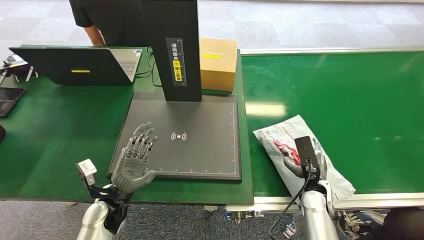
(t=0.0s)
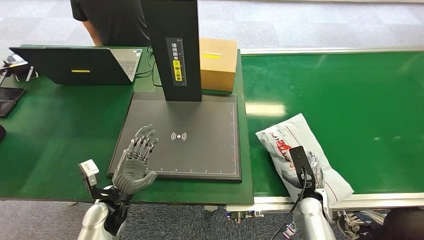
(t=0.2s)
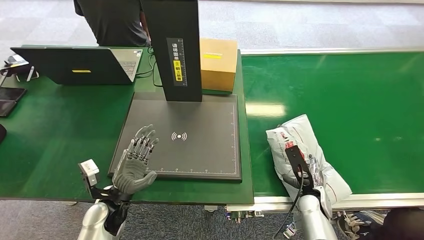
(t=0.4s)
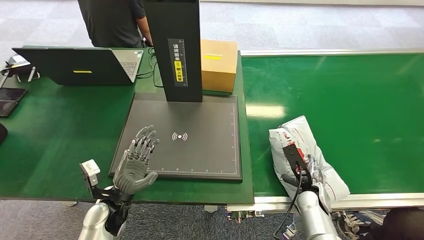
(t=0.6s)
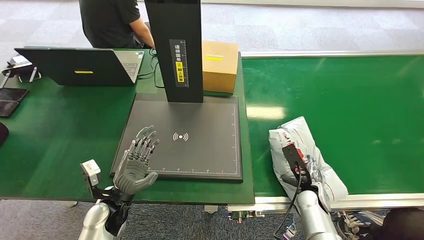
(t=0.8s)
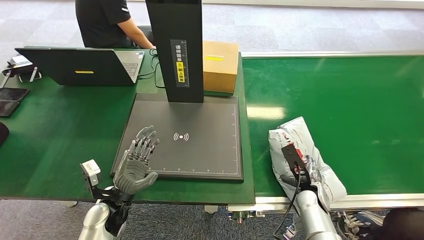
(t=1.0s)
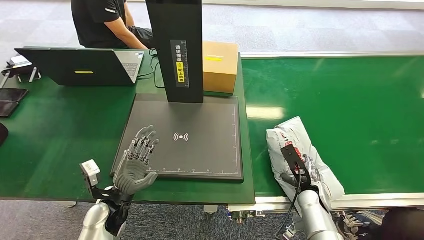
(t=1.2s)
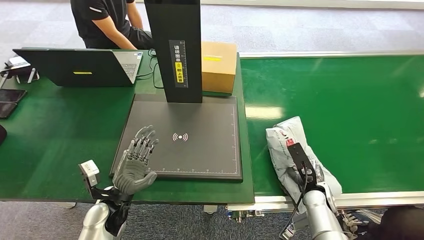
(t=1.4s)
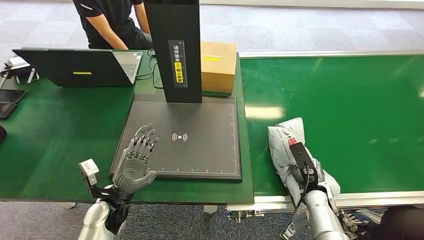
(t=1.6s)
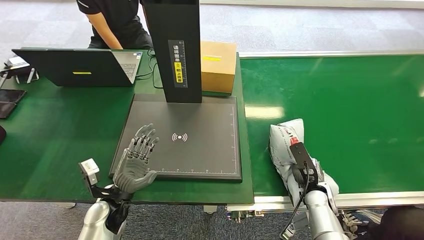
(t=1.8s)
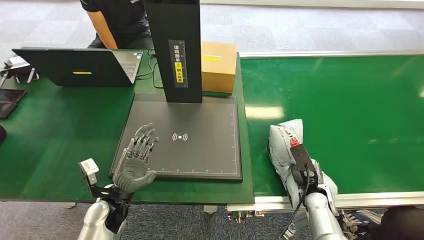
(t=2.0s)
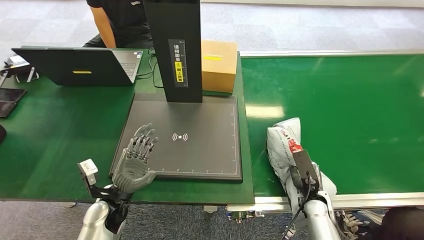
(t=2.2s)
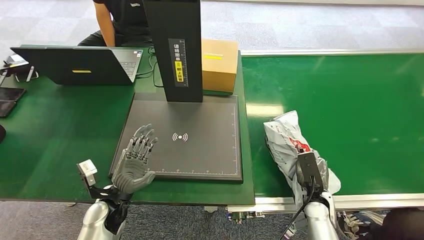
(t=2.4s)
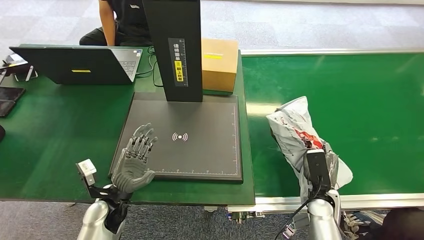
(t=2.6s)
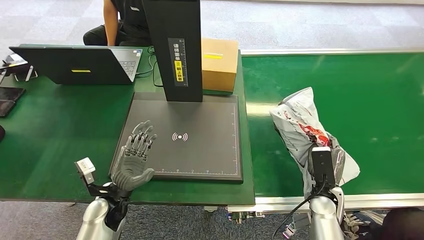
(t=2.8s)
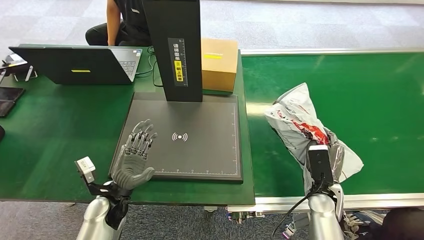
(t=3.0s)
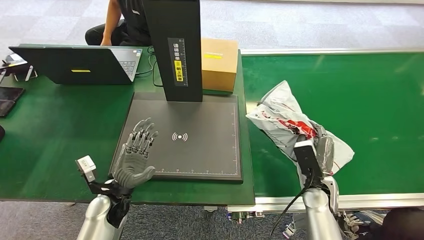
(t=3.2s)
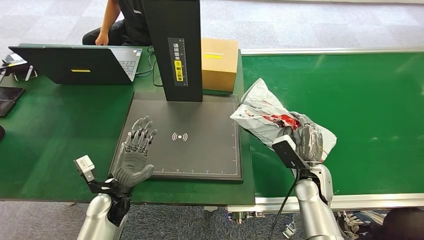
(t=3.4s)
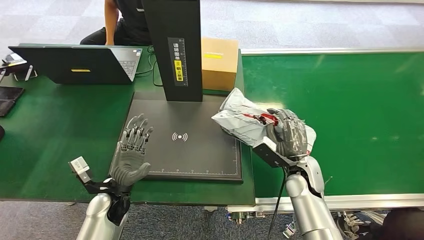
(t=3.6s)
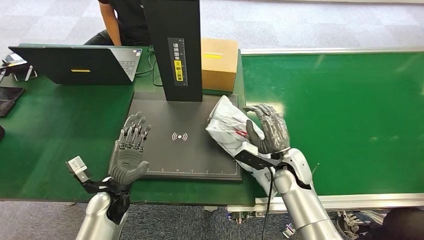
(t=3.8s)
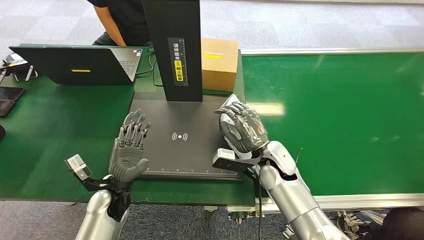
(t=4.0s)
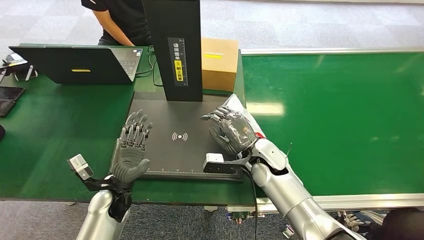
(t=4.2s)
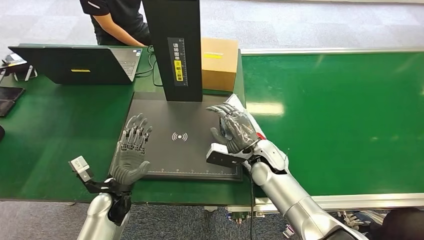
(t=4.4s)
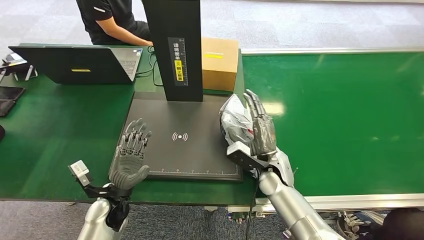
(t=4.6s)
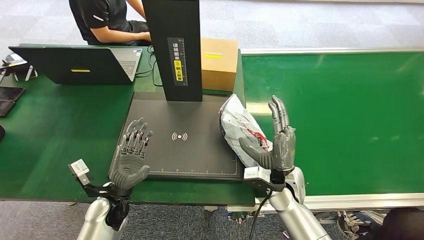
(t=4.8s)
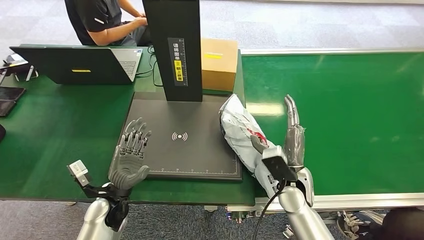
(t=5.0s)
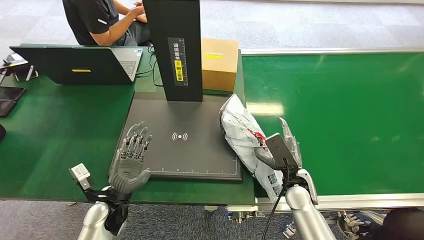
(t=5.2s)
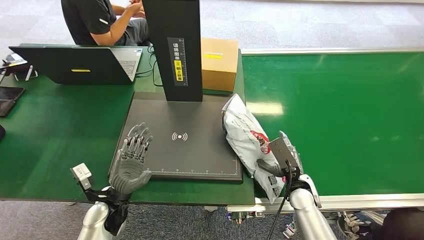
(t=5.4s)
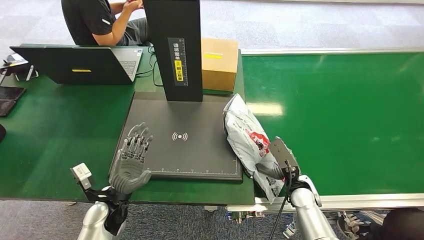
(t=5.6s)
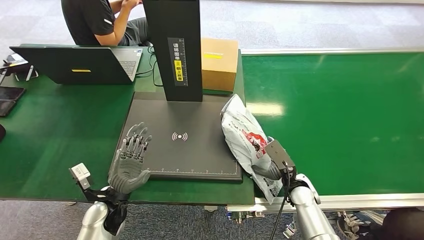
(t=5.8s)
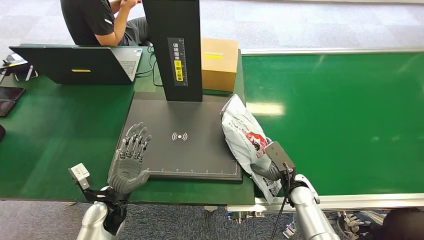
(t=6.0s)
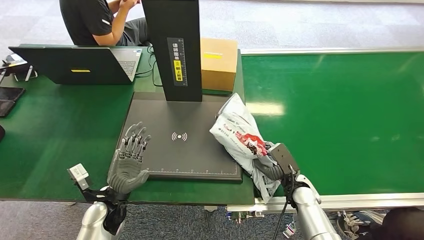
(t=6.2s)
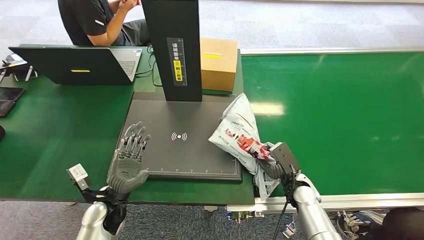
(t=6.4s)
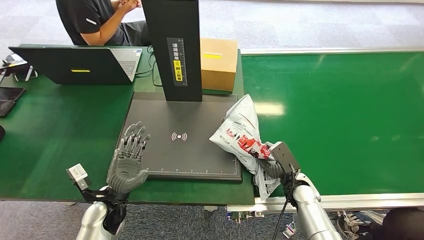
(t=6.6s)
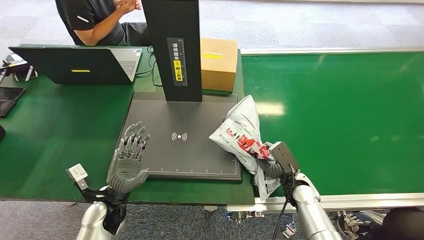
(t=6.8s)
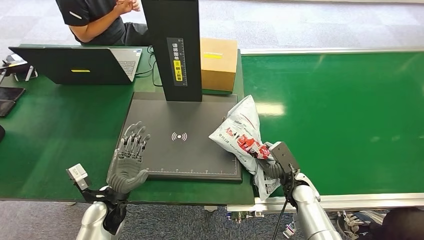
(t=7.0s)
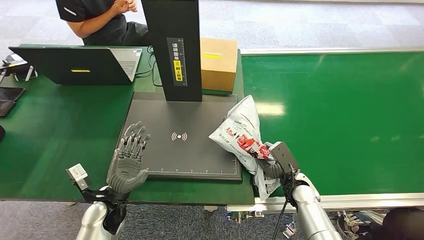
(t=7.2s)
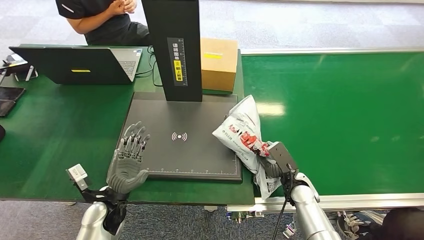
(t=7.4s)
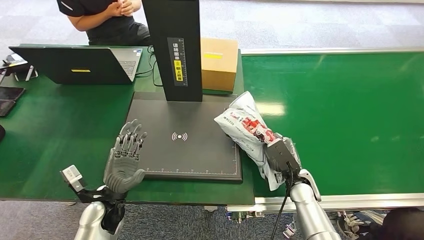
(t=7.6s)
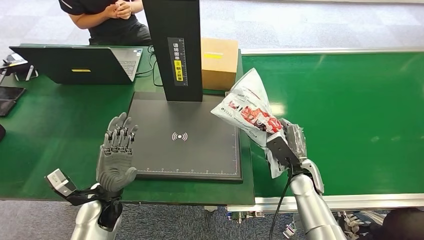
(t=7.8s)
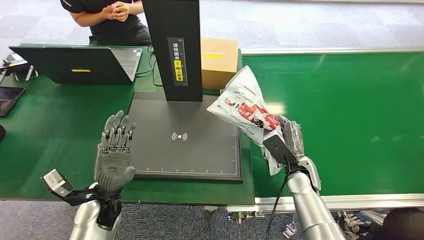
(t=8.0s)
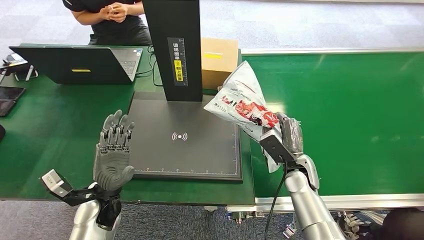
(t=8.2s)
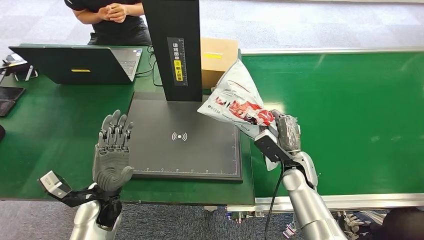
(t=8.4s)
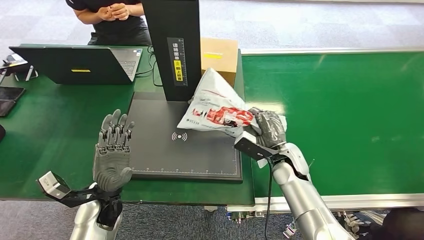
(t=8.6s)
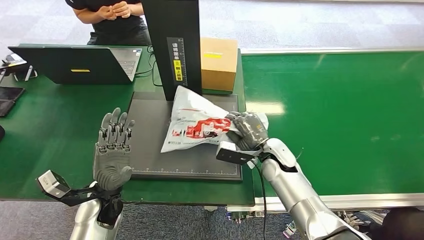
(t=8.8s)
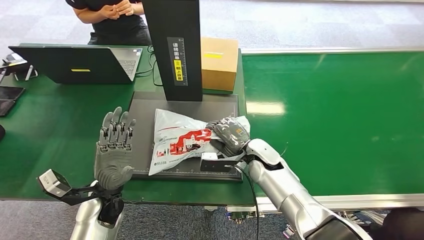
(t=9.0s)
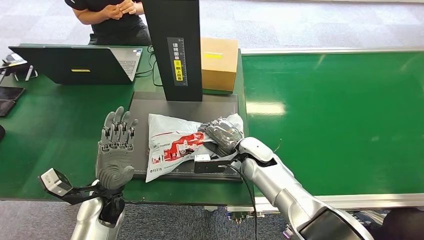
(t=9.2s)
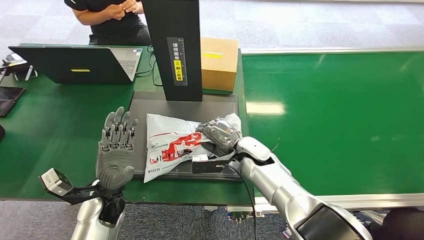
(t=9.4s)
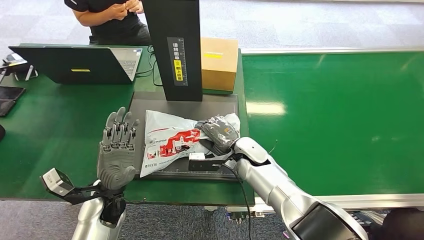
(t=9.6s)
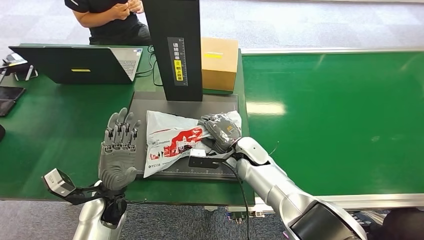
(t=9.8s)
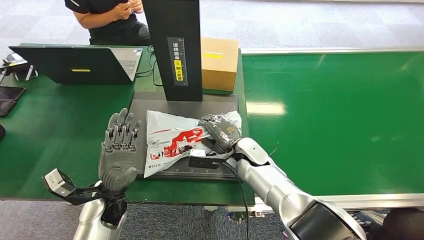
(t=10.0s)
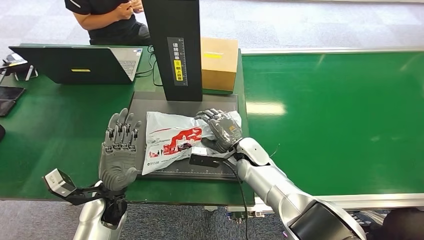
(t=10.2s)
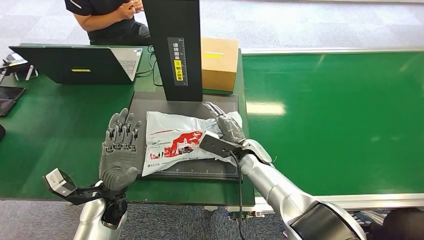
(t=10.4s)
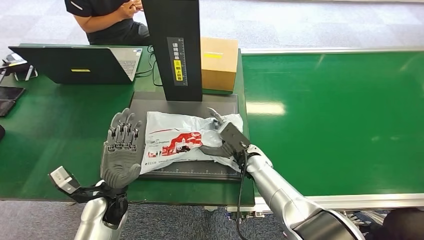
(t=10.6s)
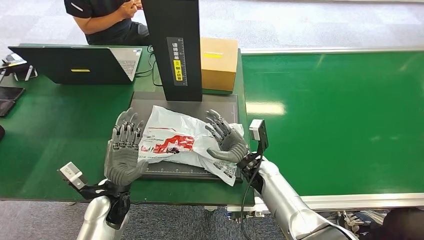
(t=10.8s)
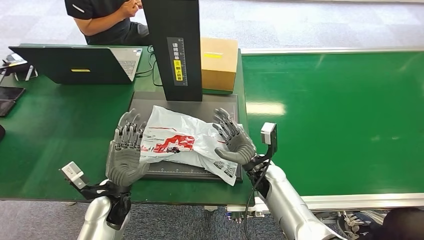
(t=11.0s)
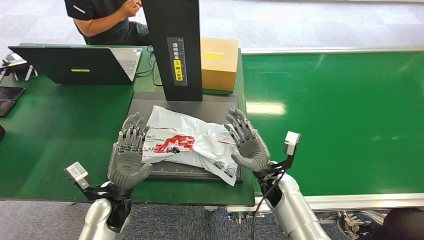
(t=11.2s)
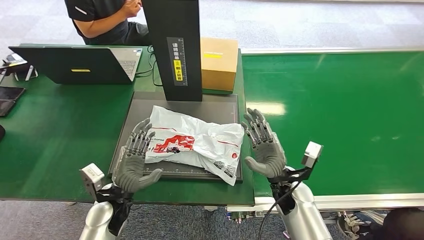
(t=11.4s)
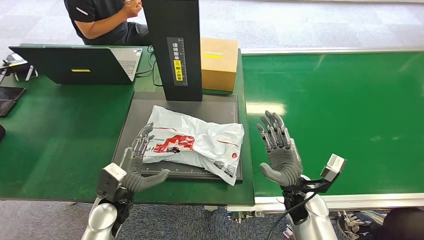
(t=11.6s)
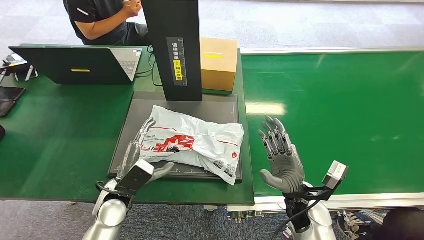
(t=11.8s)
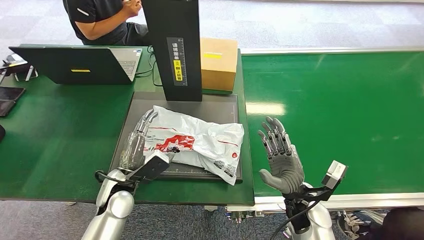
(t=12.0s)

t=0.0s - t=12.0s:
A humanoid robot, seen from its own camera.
Step, t=0.0s - t=2.6s: Pick up the package from the conveyor belt.
Step, t=2.8s - t=10.0s: Place the package onto the inbound machine.
t=0.0s - t=1.6s: The right hand shifts about 5 cm downward.
t=3.0s - t=4.4s: The right hand travels to the left, forward and upward by about 20 cm.
t=4.4s - t=6.0s: The right hand goes some 15 cm to the right, downward and backward.
t=6.0s - t=7.6s: The hands move only a little.
t=7.6s - t=9.0s: The right hand travels to the left, upward and forward by roughly 15 cm.
t=10.4s - t=12.0s: The right hand heads backward and to the right, covering about 20 cm.

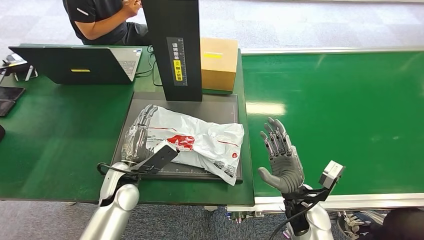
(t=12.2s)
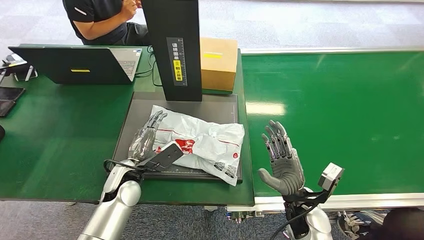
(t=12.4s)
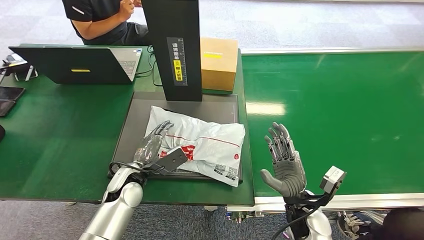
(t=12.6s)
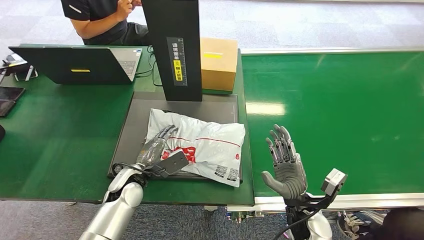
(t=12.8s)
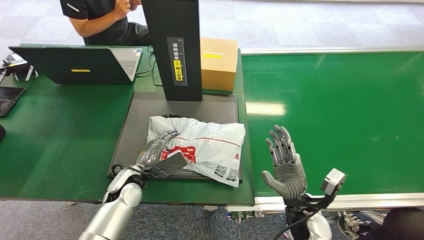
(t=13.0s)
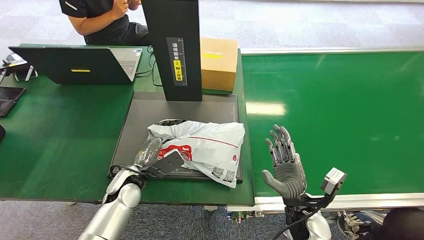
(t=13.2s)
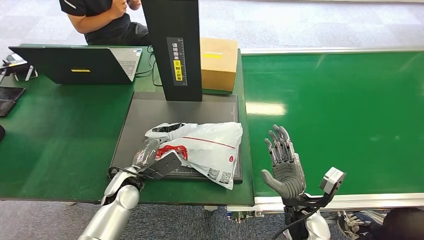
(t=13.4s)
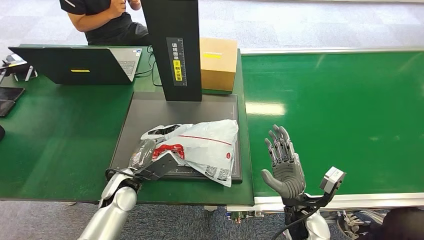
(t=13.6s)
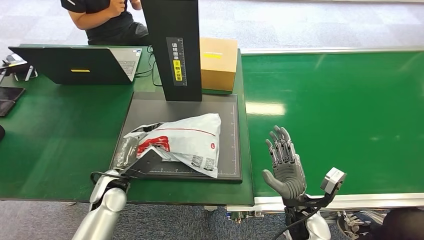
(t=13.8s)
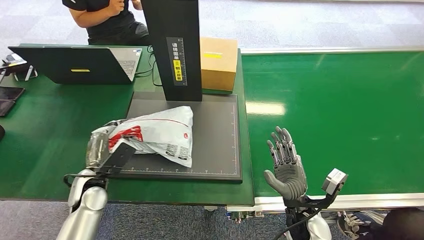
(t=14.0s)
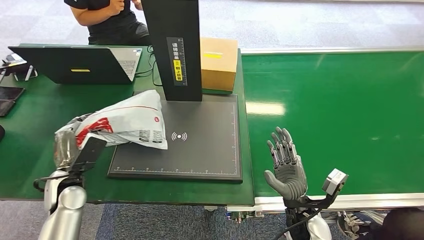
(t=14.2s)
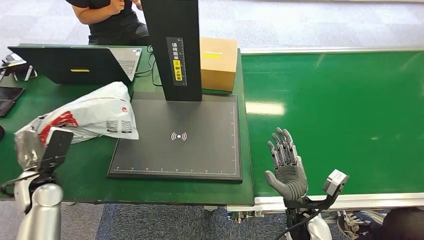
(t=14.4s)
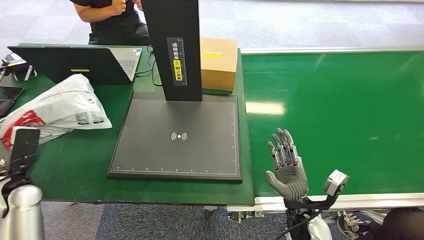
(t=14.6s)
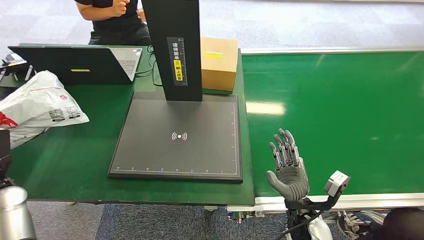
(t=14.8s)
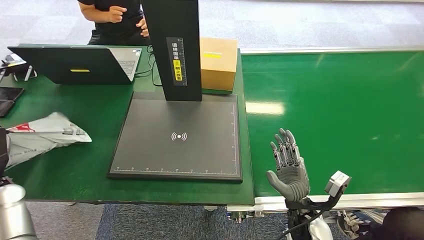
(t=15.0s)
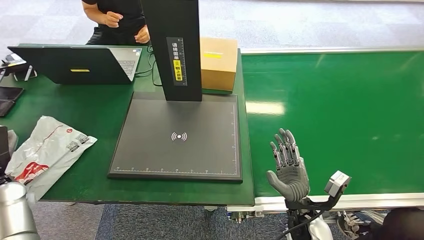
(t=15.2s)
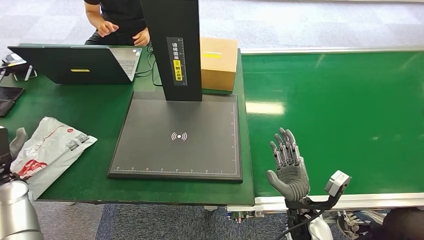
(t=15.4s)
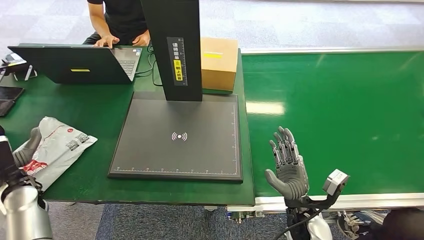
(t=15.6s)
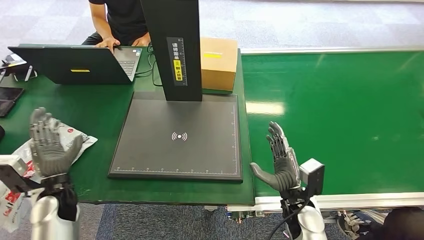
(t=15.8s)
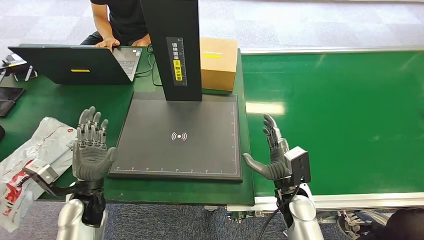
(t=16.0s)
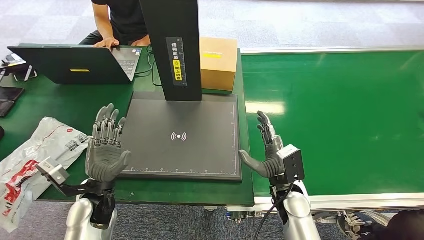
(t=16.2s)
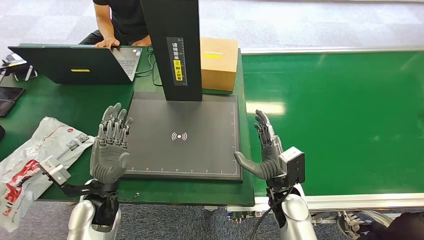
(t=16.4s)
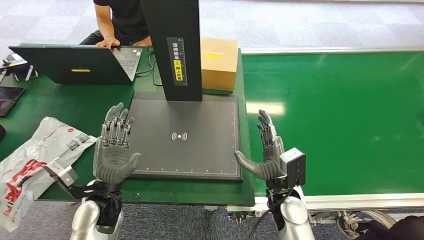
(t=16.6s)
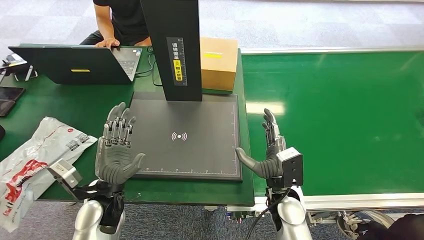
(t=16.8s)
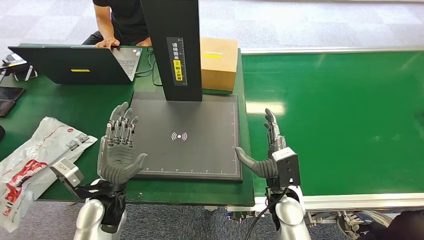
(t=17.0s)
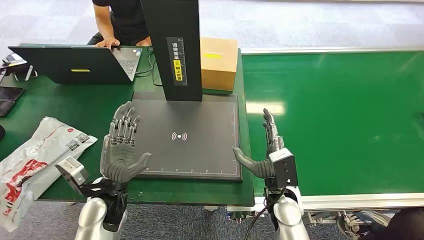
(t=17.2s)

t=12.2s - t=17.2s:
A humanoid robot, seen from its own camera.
Step, t=14.0s - t=17.0s: Place the package into the parcel locker.
t=12.2s - t=13.8s: The left hand shifts by approximately 5 cm.
t=13.8s - t=15.6s: The left hand goes approximately 20 cm to the left.
t=15.6s - t=17.2s: The left hand goes roughly 25 cm to the right, while the right hand moves to the left, roughly 5 cm.
